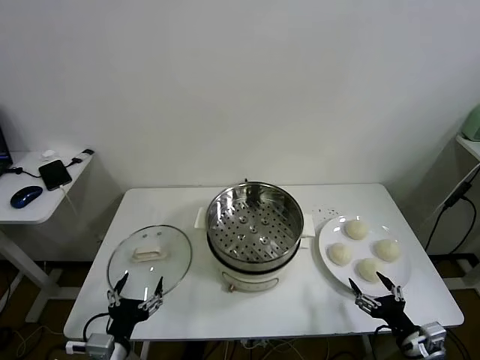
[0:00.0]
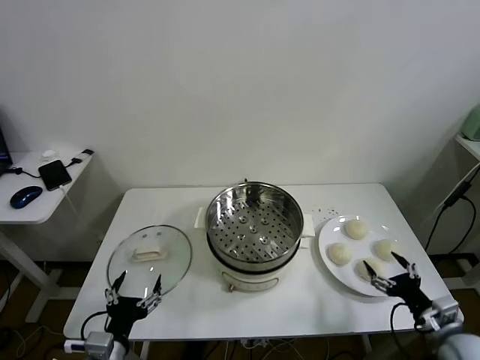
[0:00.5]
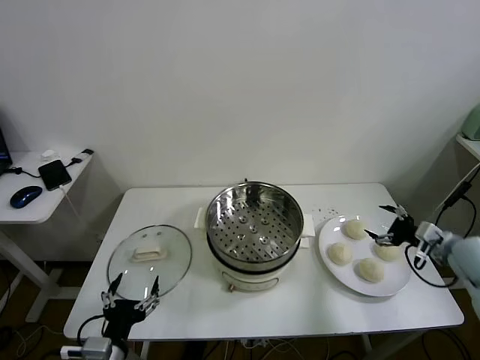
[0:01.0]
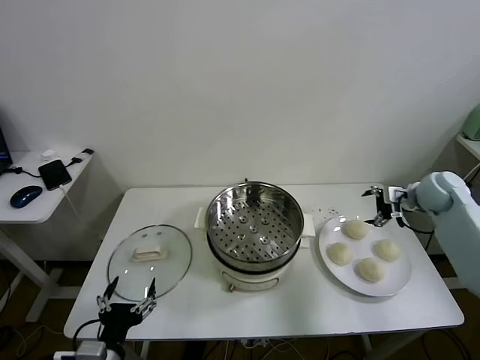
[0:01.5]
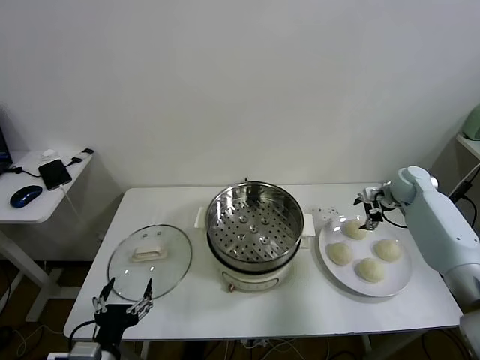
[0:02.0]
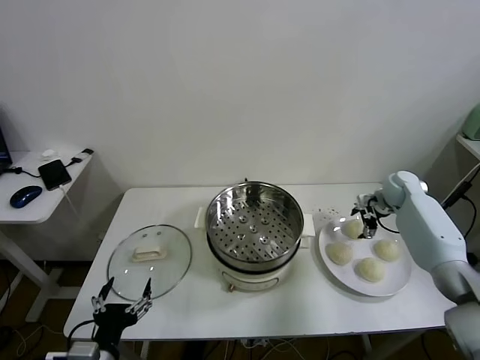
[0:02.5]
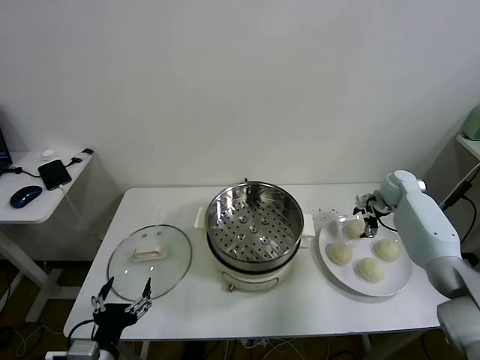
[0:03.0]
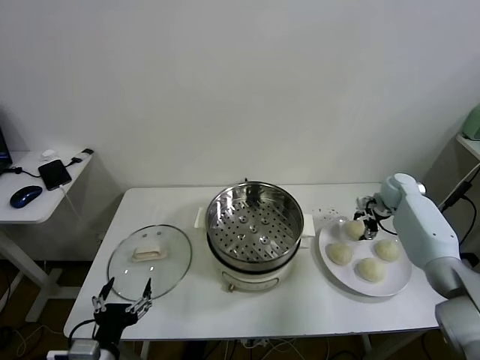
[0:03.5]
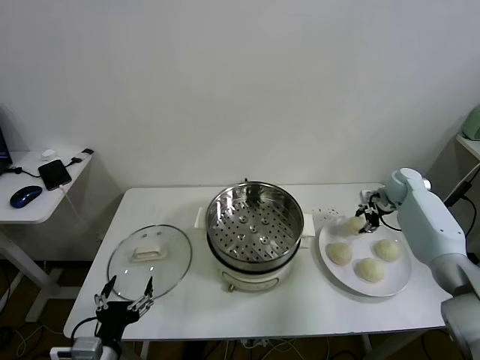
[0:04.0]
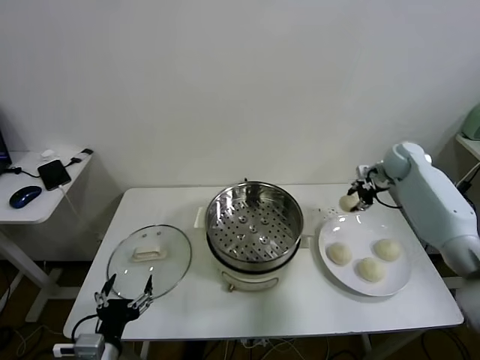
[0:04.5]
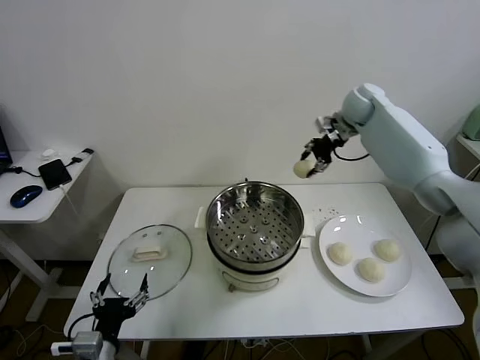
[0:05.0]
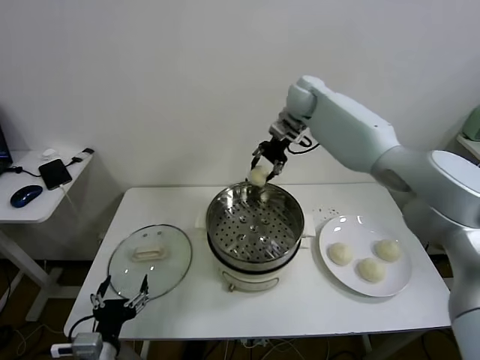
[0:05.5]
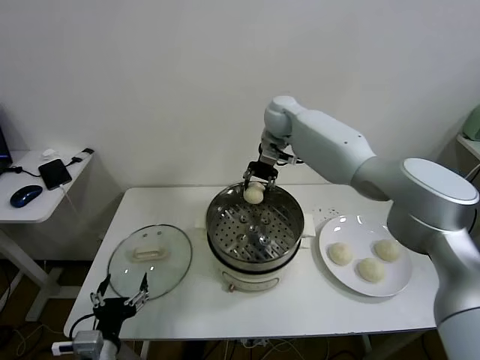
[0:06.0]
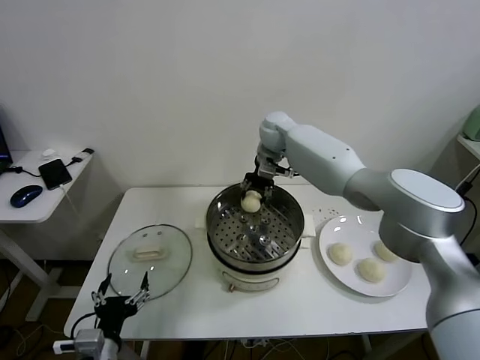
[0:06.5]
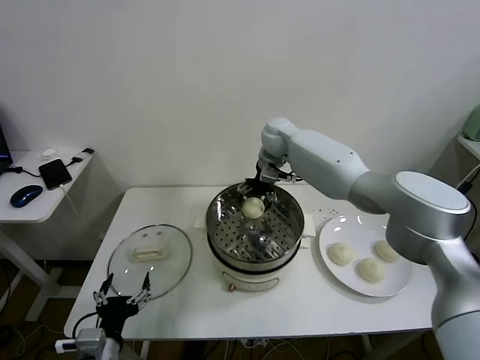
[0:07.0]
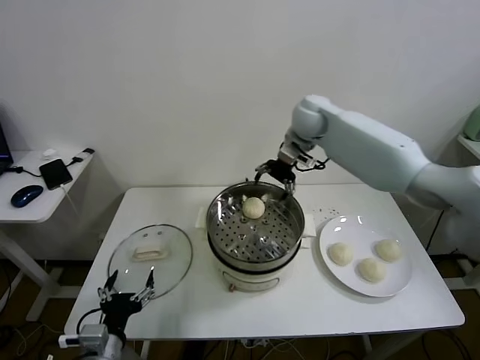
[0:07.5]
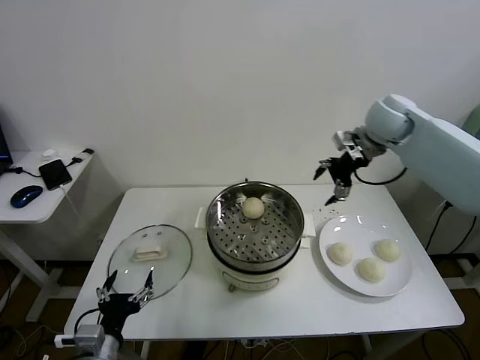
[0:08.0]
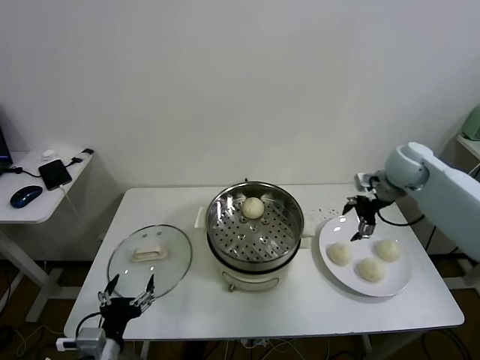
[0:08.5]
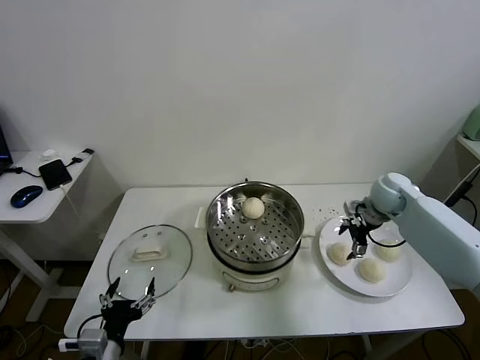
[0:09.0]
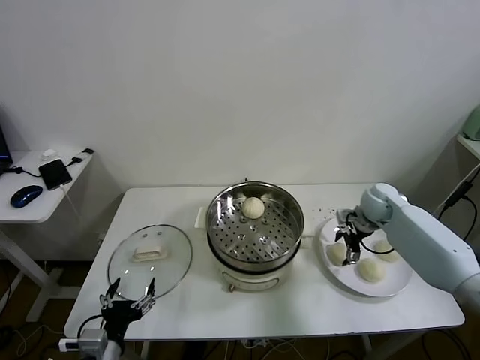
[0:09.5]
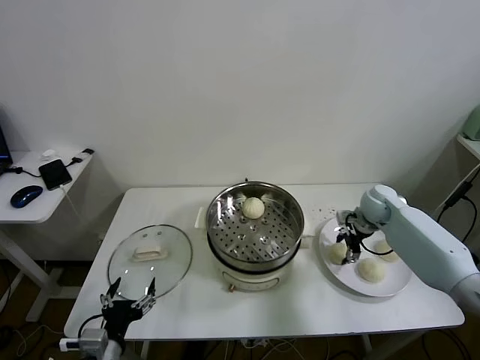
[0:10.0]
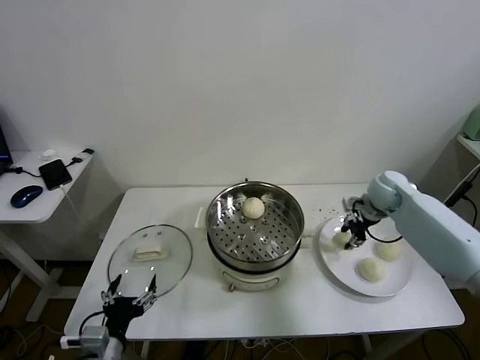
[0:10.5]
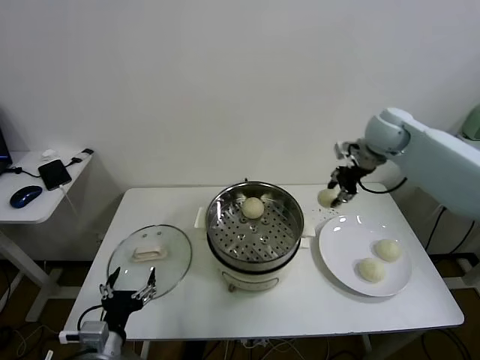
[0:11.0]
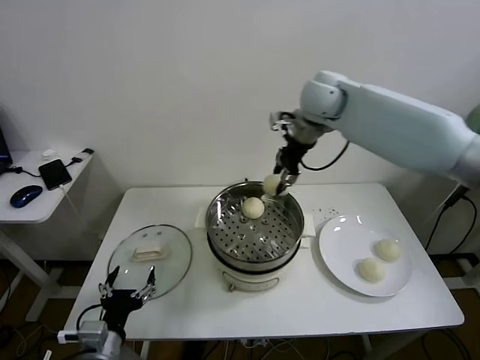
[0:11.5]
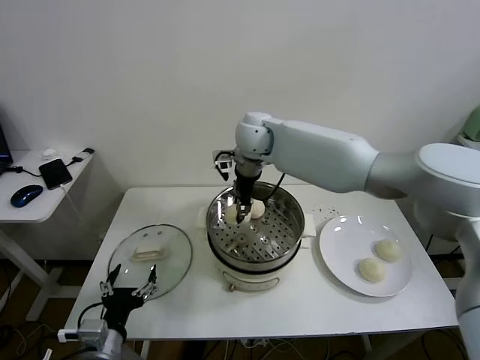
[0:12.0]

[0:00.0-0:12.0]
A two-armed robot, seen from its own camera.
Task of the whole recording: take steamed baozi put them in steamer.
Step, 0:00.0 to 0:03.5: Grasp the baozi in the plate with right gripper.
Step, 0:04.0 to 0:07.0: Place the baozi on the steamer with right gripper.
Step, 0:07.5 to 0:10.0: Grasp the baozi in the plate with right gripper.
0:02.0 to 0:04.0: The right gripper closes.
0:04.0 to 0:06.0: The right gripper moves to the left and upward, approximately 40 cm.
0:06.0 to 0:08.0: The right gripper is displaced to the right and backward by some 25 cm, and opens up.
0:08.0 to 0:10.0: The right gripper is displaced downward by approximately 25 cm, and closes.
0:10.0 to 0:12.0: The right gripper is displaced to the left and upward by some 40 cm, and closes up.

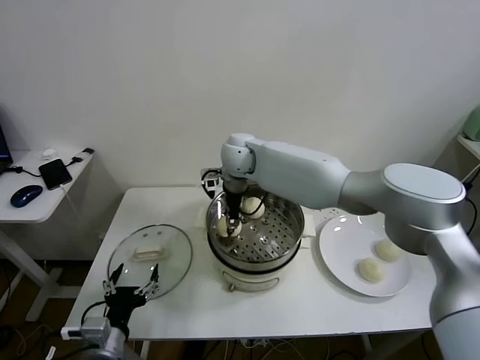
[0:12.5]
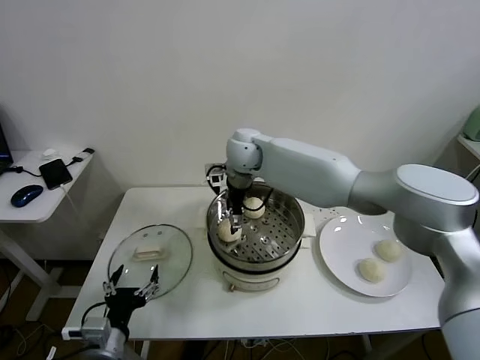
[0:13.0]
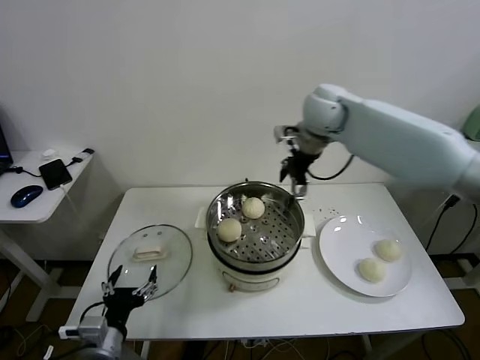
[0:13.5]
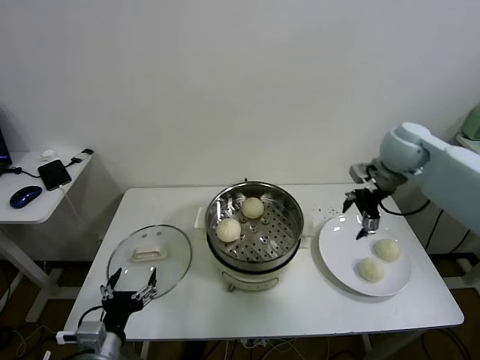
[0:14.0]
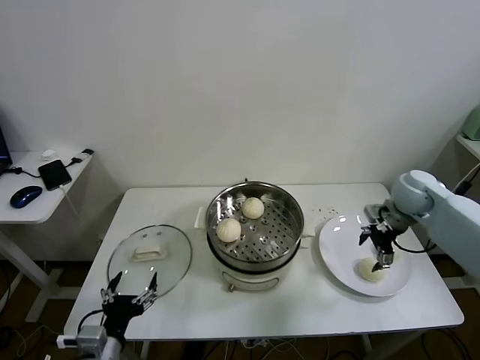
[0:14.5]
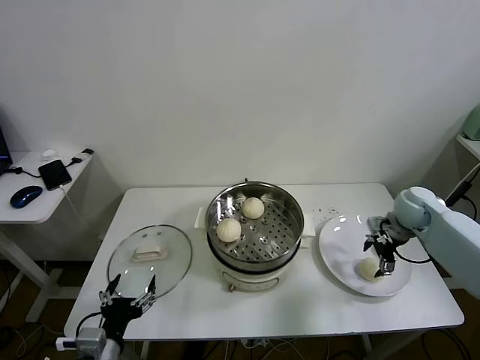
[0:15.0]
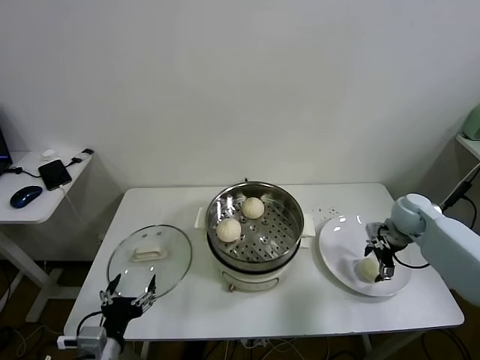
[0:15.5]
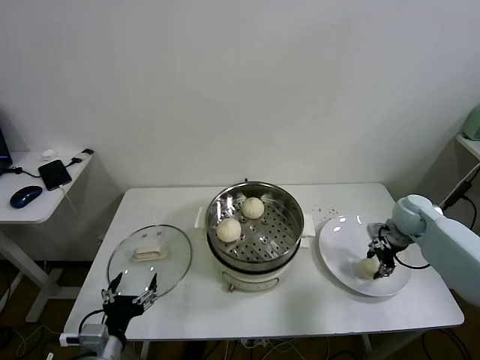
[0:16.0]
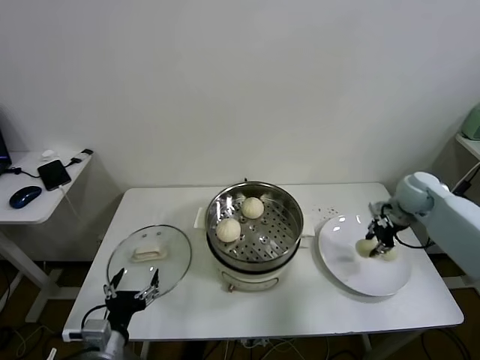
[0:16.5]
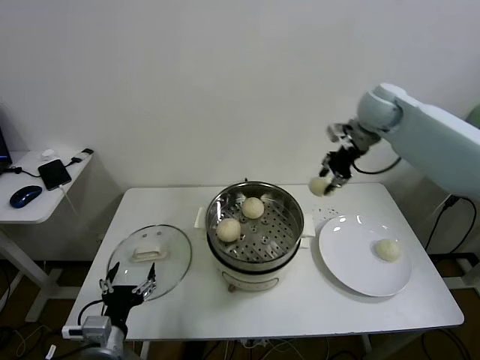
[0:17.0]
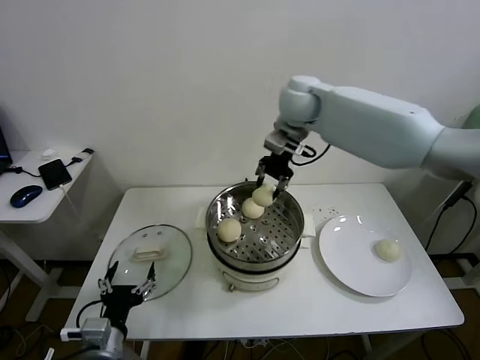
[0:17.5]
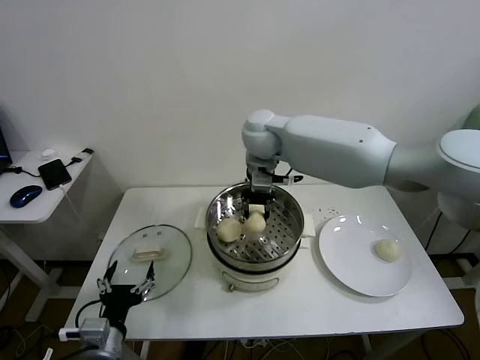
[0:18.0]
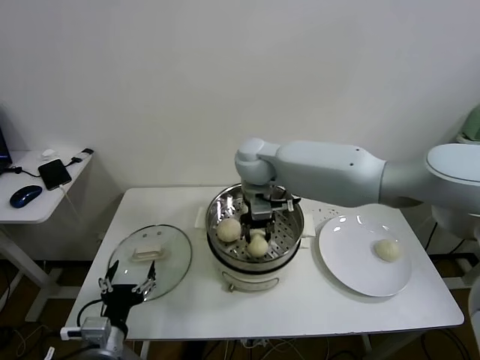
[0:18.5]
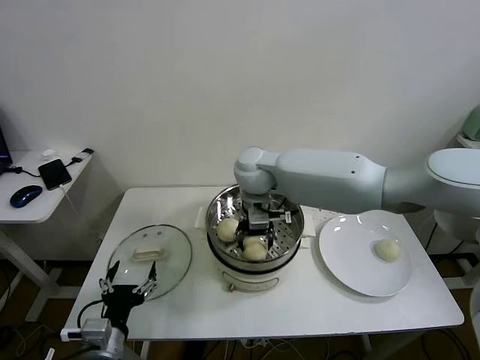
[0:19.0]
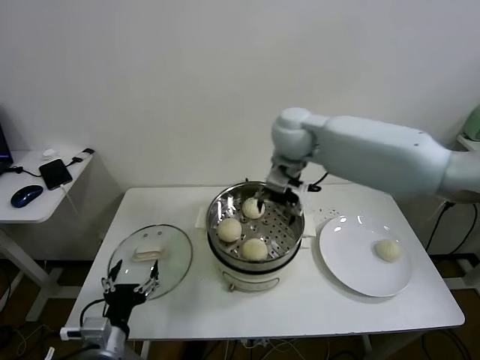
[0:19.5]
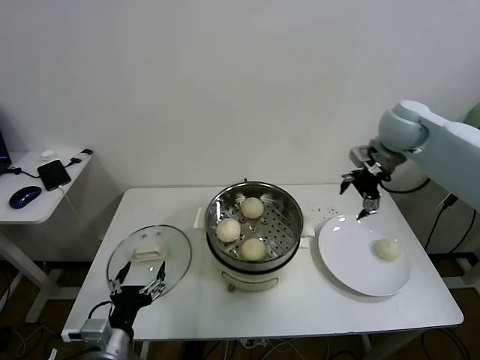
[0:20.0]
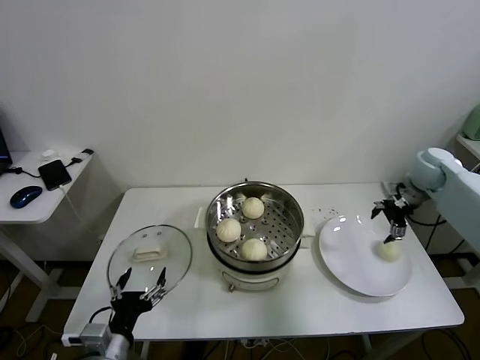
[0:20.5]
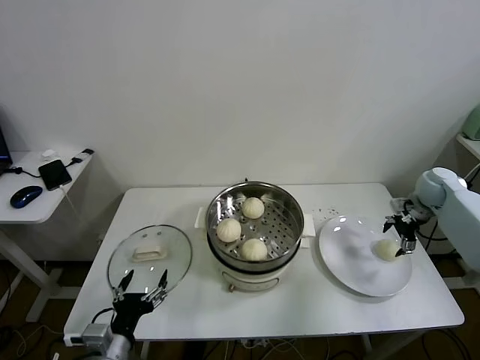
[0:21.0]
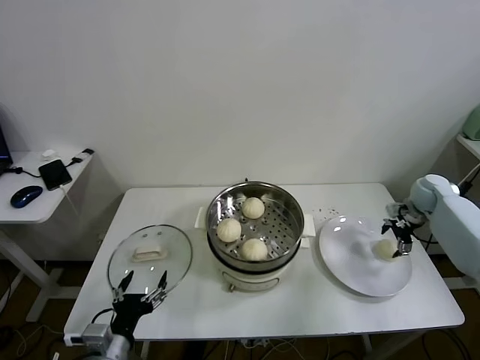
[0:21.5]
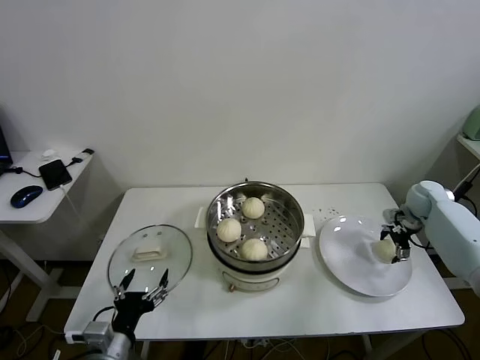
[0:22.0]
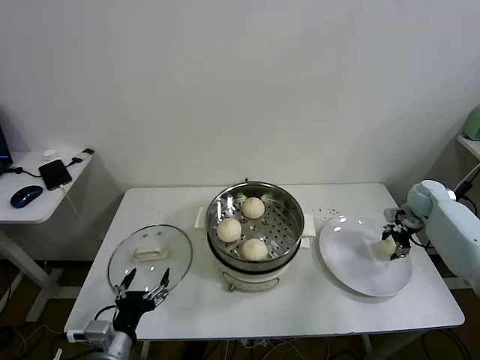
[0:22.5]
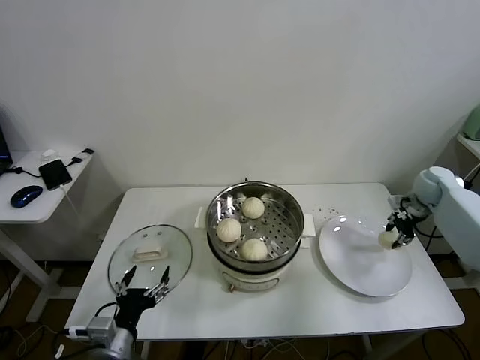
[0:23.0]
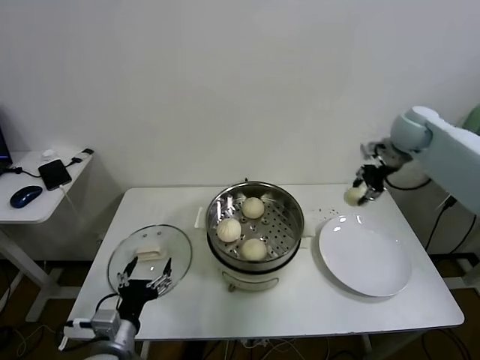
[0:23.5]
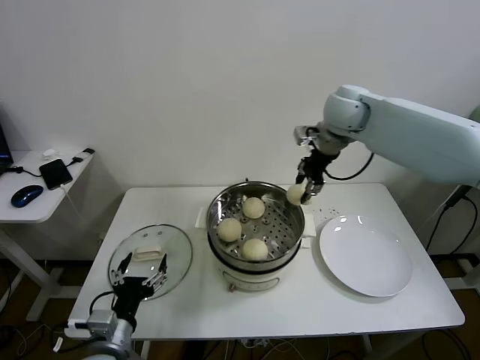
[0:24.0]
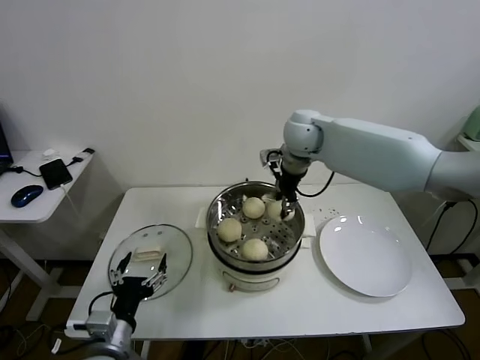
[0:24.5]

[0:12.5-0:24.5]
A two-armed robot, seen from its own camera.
Task of the whole recording: take steamed baozi put them in steamer.
Step, 0:13.5 to 0:15.5: Grasp the baozi in the plate with right gripper.
Step, 0:16.5 to 0:19.0: Place the baozi on the steamer with right gripper.
Step, 0:19.5 to 0:22.5: Grasp the baozi in the plate with right gripper.
0:12.5 to 0:14.5: The right gripper shifts roughly 40 cm to the right, and opens its fingers.
0:14.5 to 0:16.5: The right gripper goes downward and returns, approximately 10 cm each way, and closes.
0:16.5 to 0:18.5: The right gripper is displaced to the left by approximately 40 cm.
0:18.5 to 0:20.5: The right gripper shifts about 40 cm to the right, and opens its fingers.
0:20.5 to 0:22.5: The right gripper moves downward, about 10 cm, and closes its fingers.
0:22.5 to 0:24.5: The right gripper is displaced to the left and upward by approximately 40 cm, and closes its fingers.

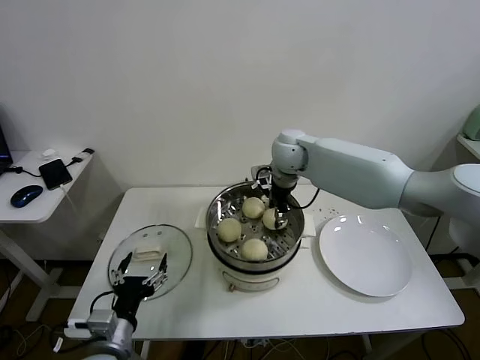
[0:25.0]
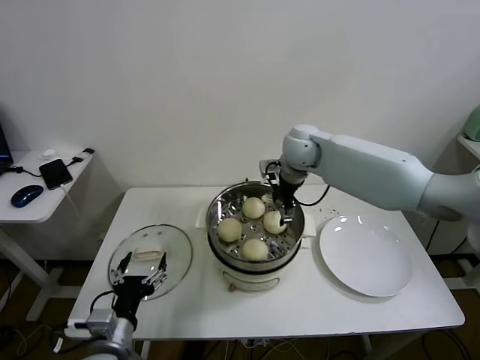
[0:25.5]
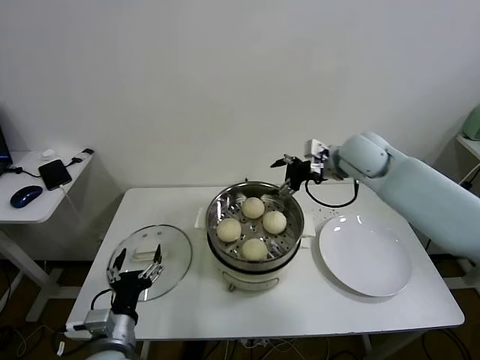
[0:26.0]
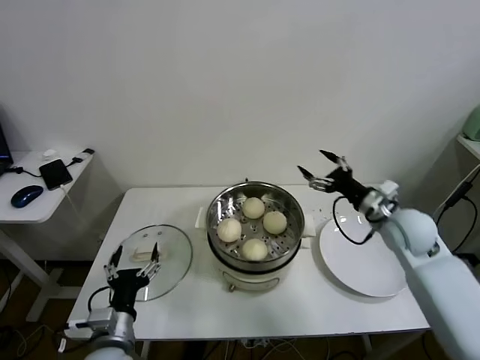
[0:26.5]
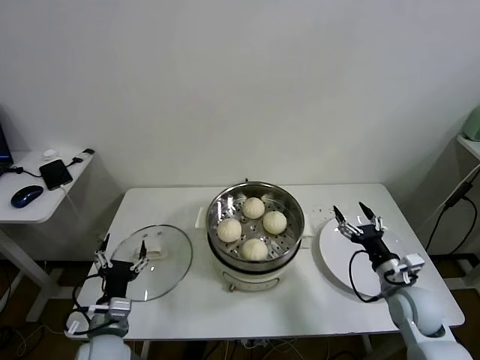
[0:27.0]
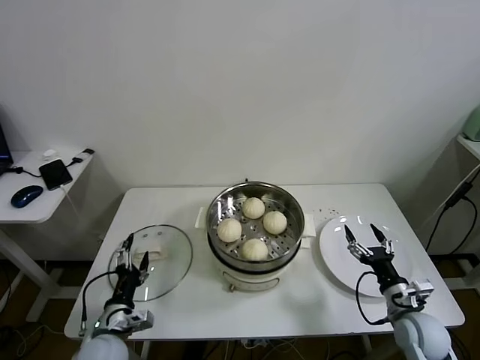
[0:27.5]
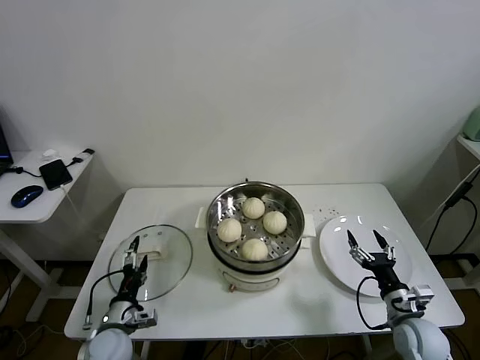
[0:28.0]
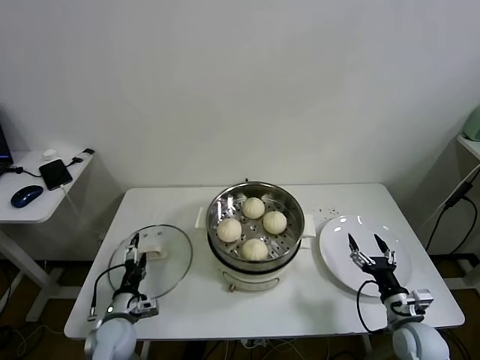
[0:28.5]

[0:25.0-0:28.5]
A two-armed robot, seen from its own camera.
Task of the whole recording: take steamed baozi put them in steamer.
0:25.0 to 0:27.0: The right gripper heads backward, to the right and downward, covering some 40 cm, and opens. The left gripper shifts by roughly 5 cm.
0:27.0 to 0:28.5: The left gripper travels downward and forward by roughly 10 cm. Meanwhile the right gripper shifts approximately 10 cm backward and downward.
